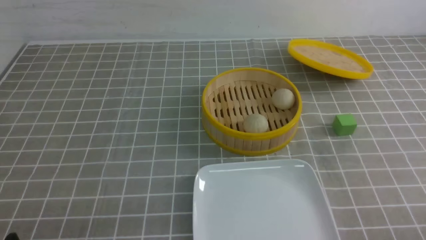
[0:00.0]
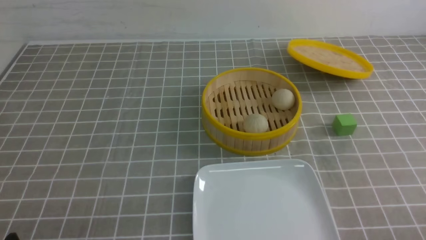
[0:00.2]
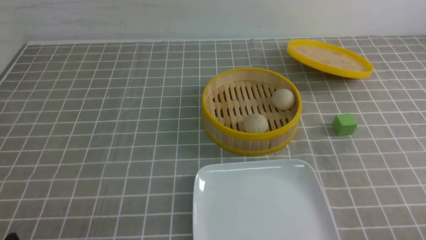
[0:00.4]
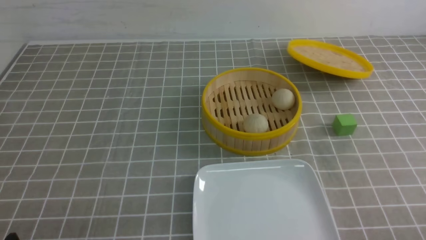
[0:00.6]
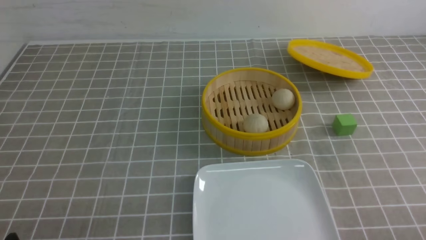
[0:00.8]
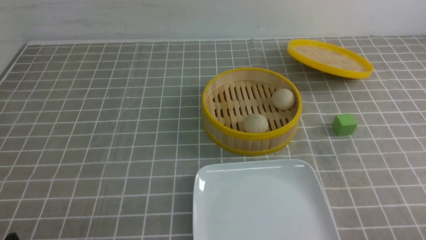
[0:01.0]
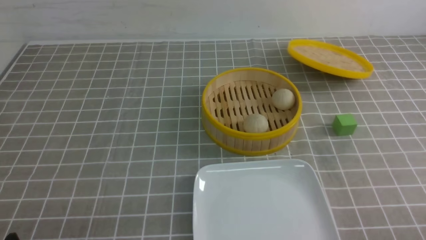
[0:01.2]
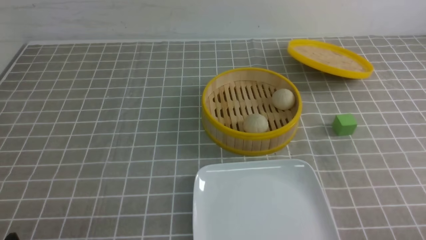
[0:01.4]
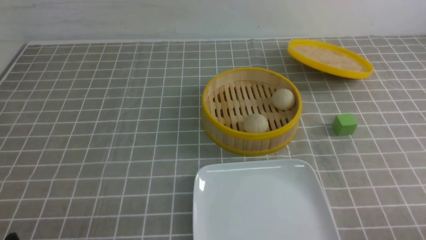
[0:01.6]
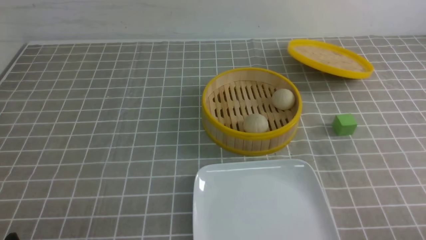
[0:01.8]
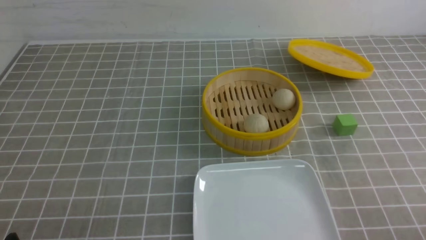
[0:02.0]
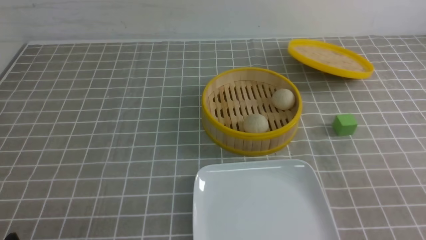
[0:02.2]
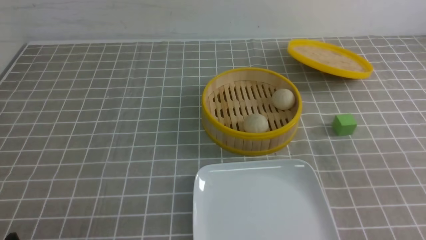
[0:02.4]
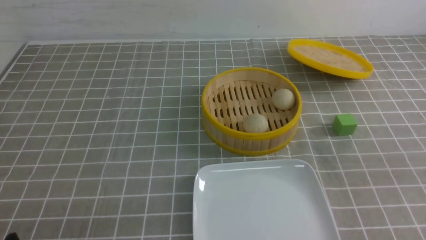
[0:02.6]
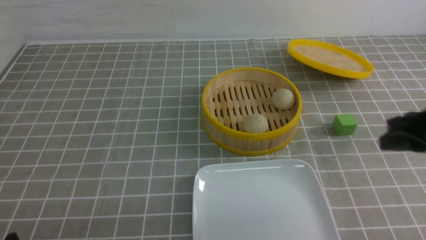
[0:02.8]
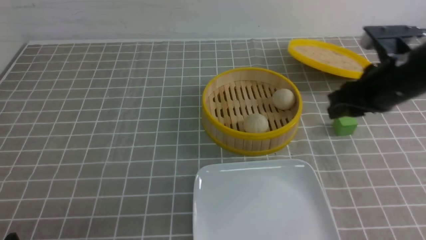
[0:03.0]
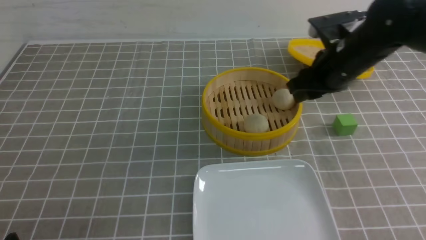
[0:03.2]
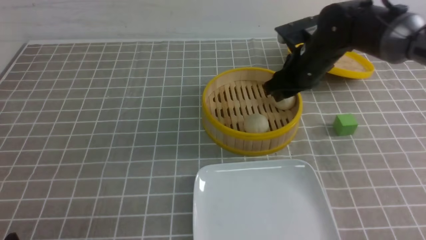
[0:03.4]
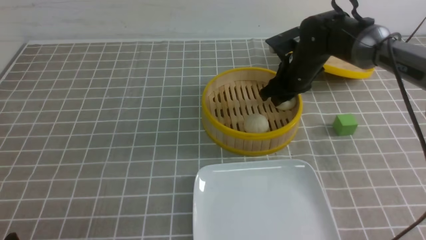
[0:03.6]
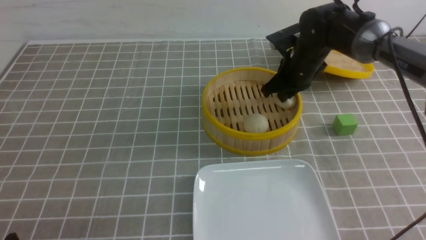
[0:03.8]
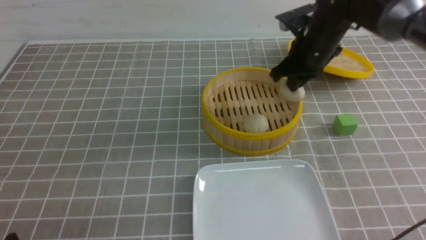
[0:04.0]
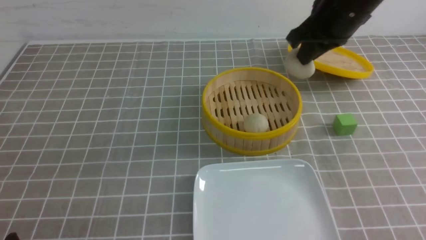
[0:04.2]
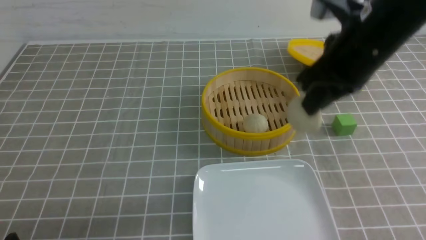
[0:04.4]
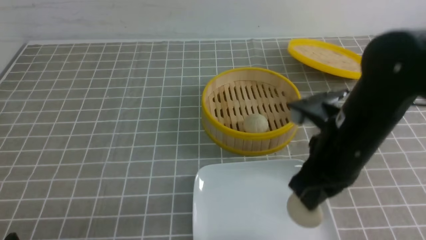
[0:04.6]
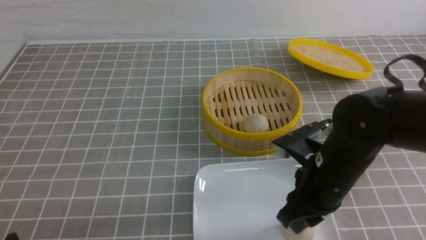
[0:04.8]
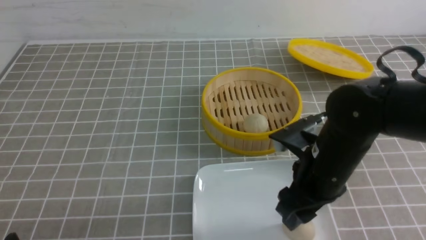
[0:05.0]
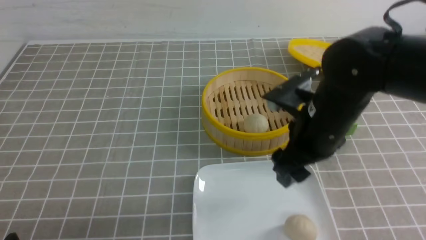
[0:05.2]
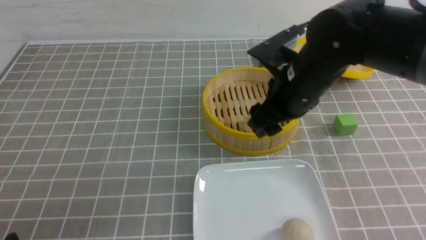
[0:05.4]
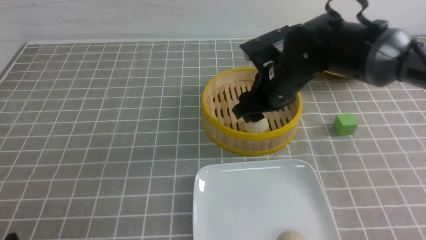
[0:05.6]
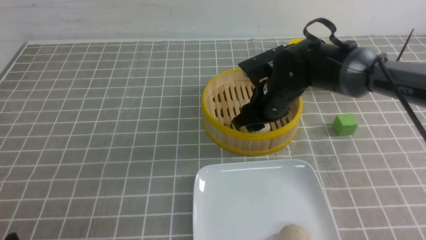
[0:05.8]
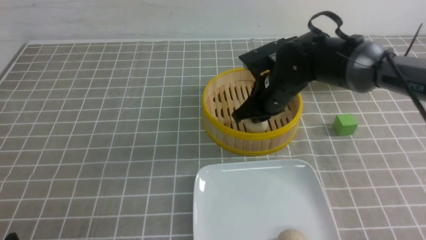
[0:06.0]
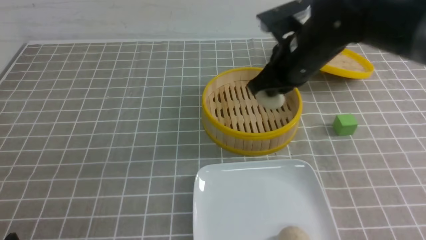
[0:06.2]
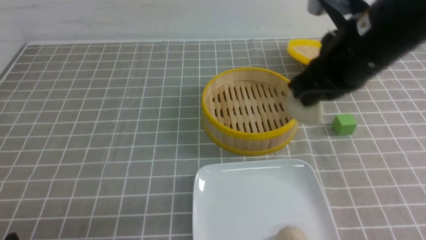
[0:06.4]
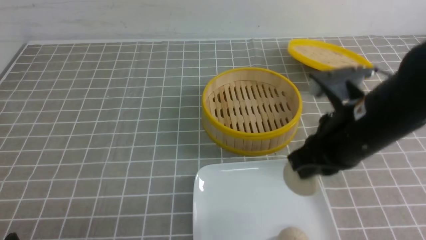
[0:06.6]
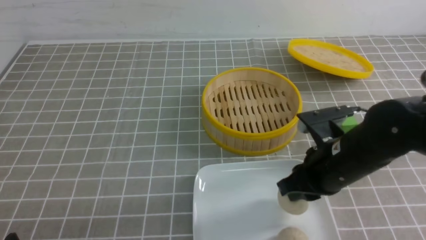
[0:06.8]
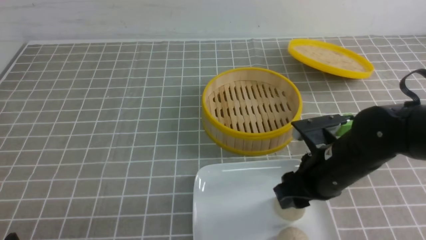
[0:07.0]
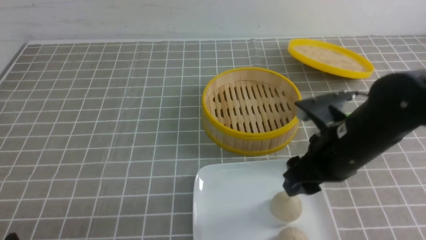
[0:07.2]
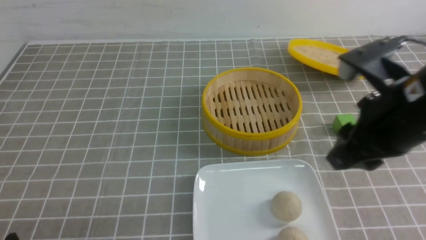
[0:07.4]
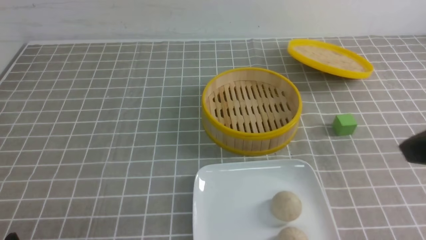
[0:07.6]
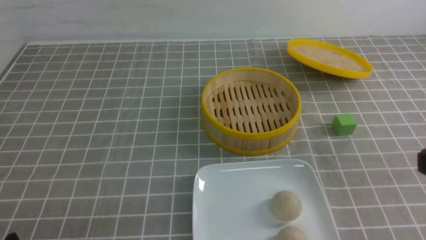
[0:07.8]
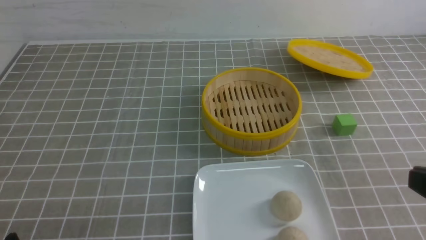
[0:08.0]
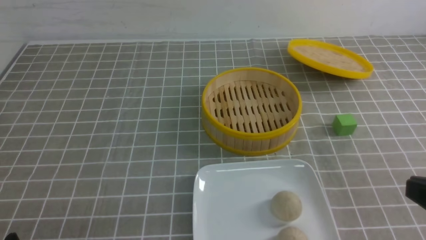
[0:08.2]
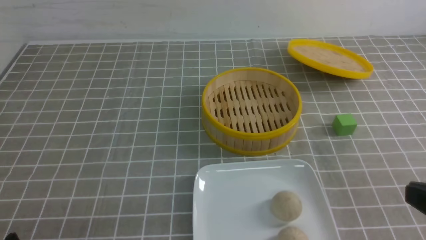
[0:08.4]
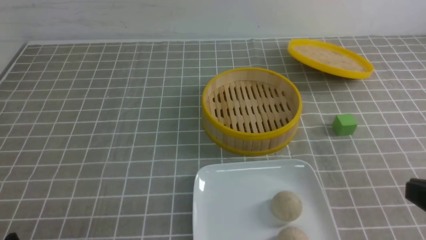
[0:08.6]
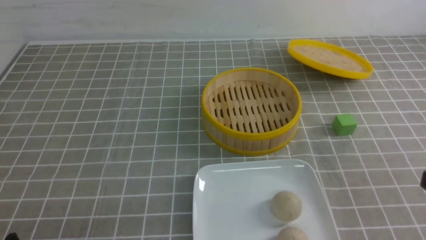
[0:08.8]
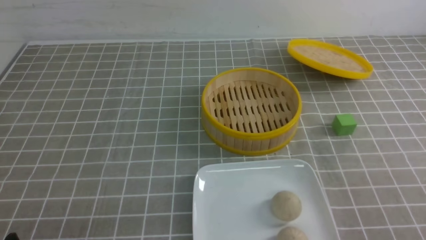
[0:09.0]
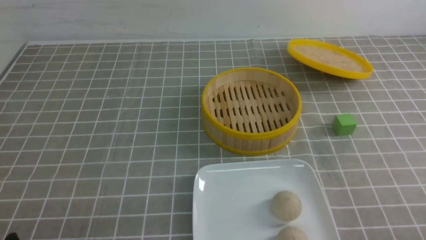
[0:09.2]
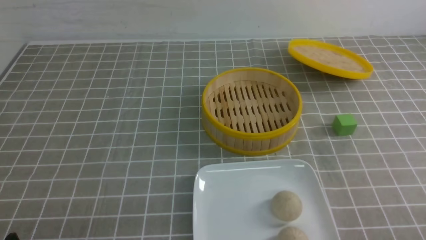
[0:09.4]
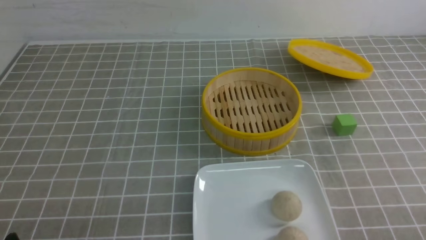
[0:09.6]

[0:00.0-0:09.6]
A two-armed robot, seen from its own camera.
Step, 0:00.0 to 0:03.8: use the right arm to grab the steamed stuffed bun that is closest to it.
Step, 0:04.0 to 0:05.0: use the right arm to put the steamed stuffed bun into the plate.
Step, 0:05.2 to 0:06.0: use the right arm to grab the steamed stuffed bun that is closest to it.
Step, 0:06.2 to 0:07.0: use the right arm to put the steamed stuffed bun into the plate.
0:01.6 to 0:03.2: The right gripper shifts some 35 cm forward.
0:03.2 to 0:04.8: The right gripper shifts approximately 15 cm backward, and closes and opens again.
0:04.8 to 0:06.4: The right gripper moves upward, about 10 cm, reaches some 15 cm forward, then returns, and closes.
0:06.4 to 0:08.0: The right gripper is displaced backward and to the right by some 25 cm, and opens, then closes again.

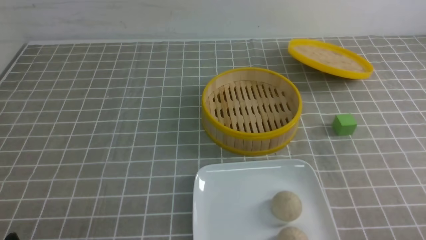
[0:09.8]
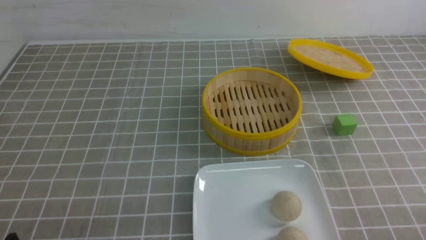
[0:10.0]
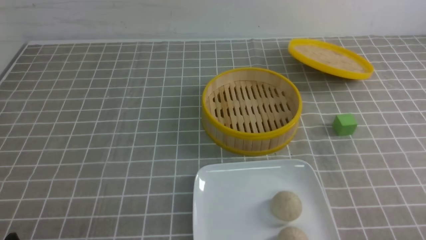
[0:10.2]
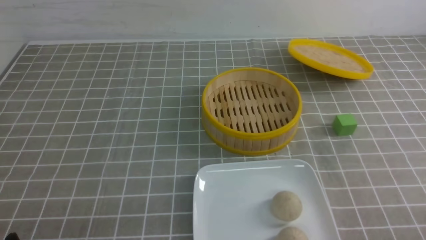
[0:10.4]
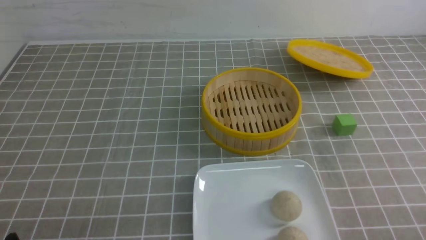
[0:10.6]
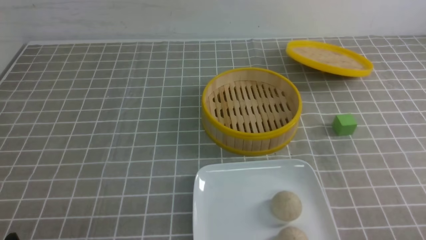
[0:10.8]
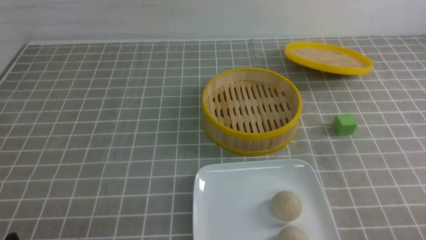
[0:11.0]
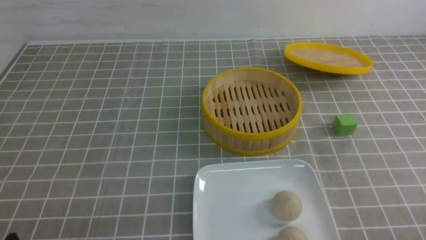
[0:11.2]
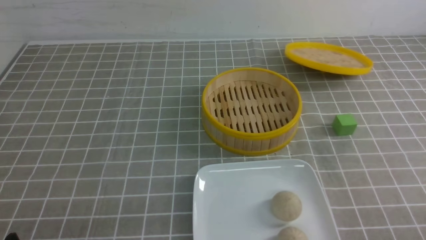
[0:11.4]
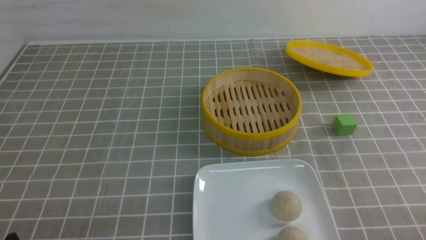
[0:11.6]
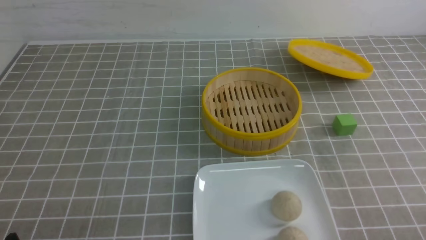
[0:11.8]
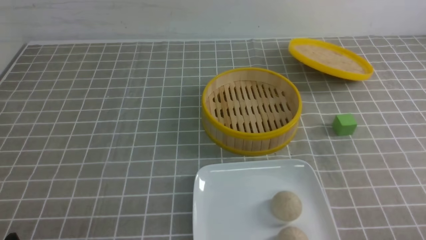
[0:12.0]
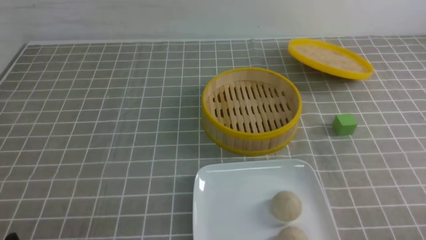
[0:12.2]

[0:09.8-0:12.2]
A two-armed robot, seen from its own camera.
0:09.8 to 0:12.2: Both grippers stay about where they are.
